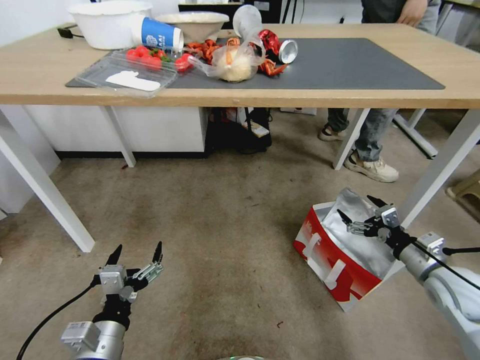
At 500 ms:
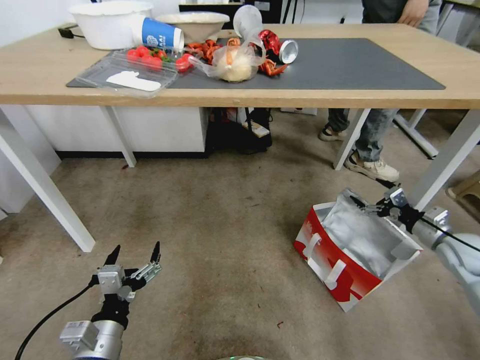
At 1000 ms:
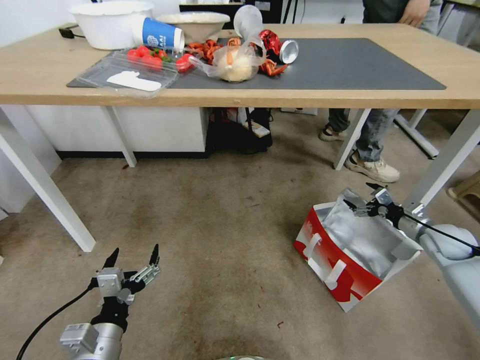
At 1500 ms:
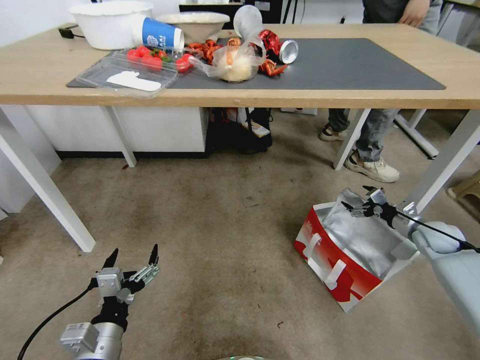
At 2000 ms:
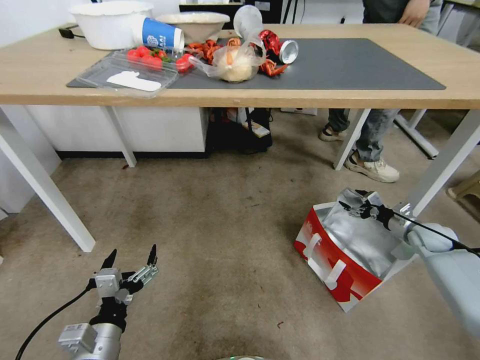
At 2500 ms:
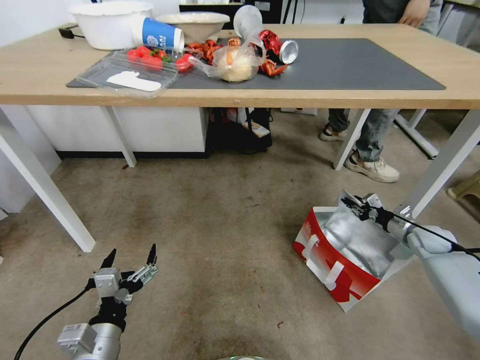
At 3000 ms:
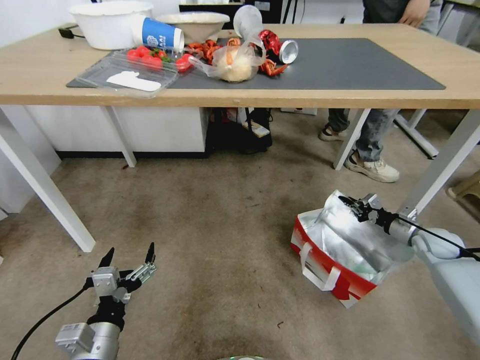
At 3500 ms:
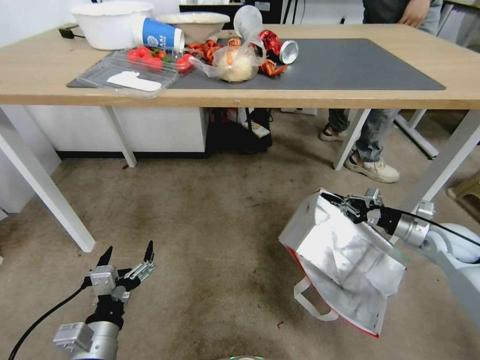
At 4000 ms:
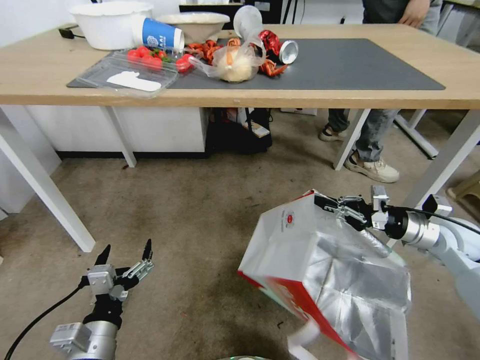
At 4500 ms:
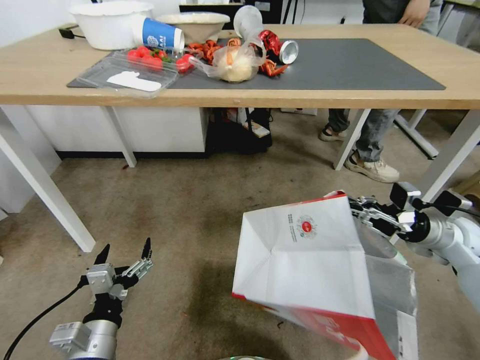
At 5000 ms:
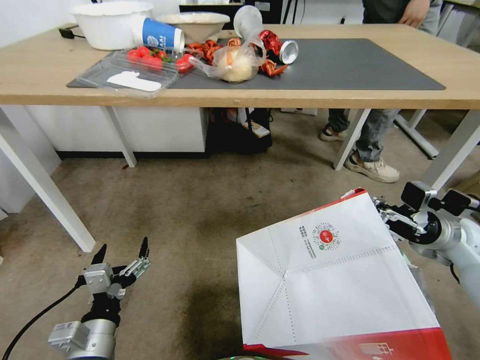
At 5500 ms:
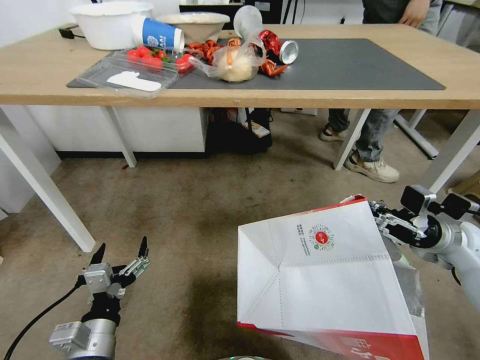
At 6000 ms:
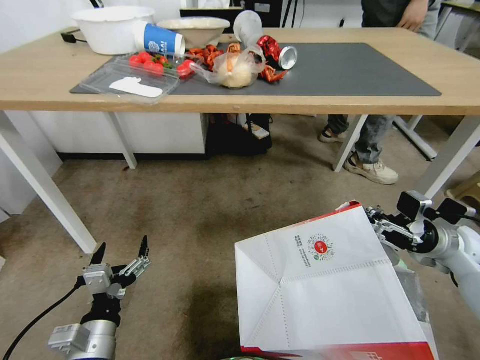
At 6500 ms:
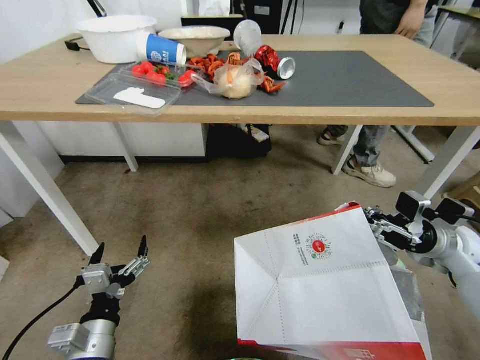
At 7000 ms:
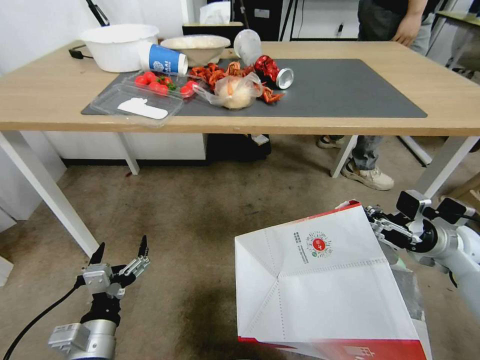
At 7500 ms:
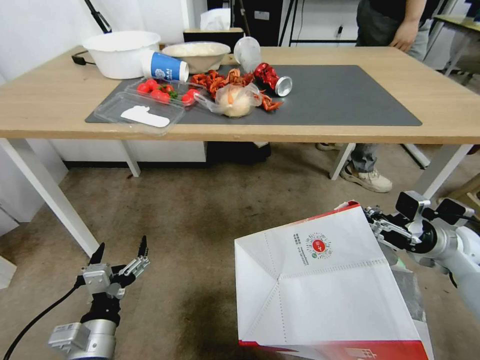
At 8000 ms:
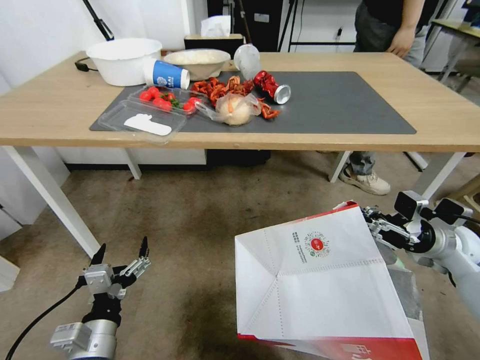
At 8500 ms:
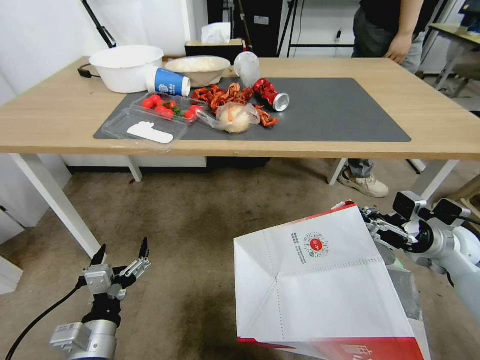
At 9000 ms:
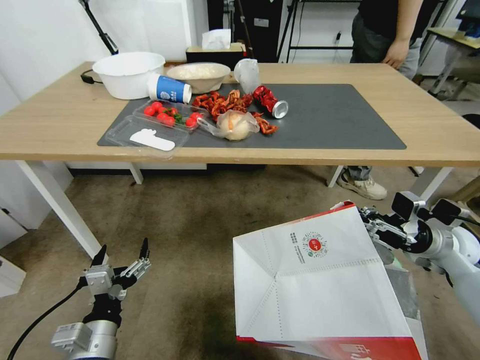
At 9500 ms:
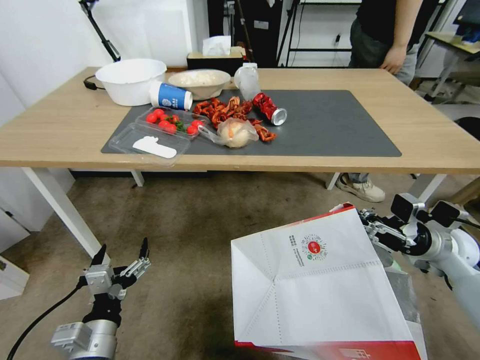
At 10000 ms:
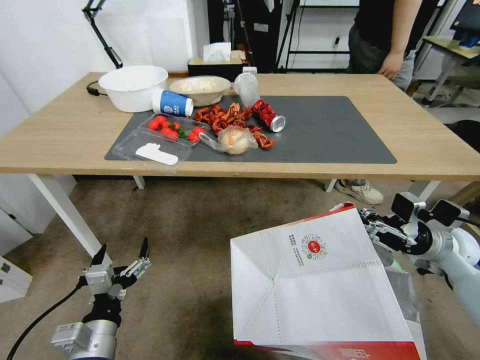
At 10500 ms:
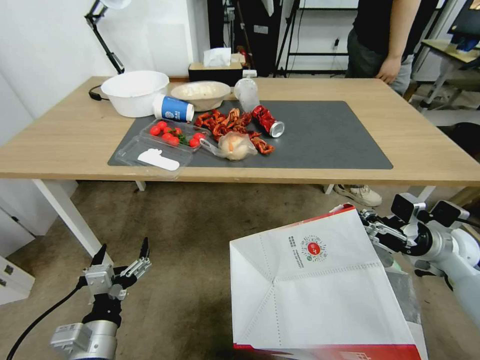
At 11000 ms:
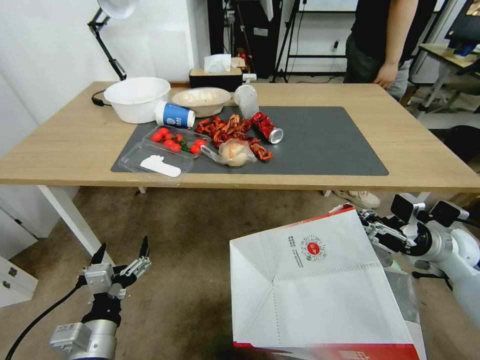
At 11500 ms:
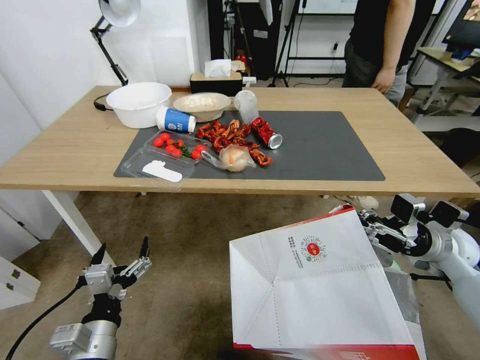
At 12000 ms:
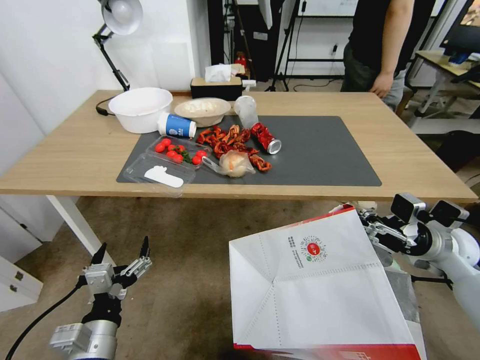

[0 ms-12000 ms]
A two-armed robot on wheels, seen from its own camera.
Task of the whole recording: Pick up the food delivery bag from the floor and place it on the table.
0 ms to 2000 ms: The right gripper shifts approximately 25 cm forward, to the right and downward.
2000 ms to 4000 ms: The right gripper shifts roughly 15 cm upward, to the left and backward, and closes.

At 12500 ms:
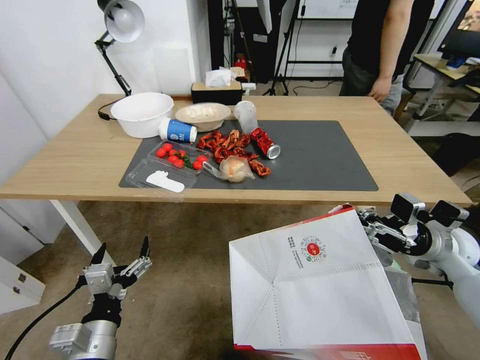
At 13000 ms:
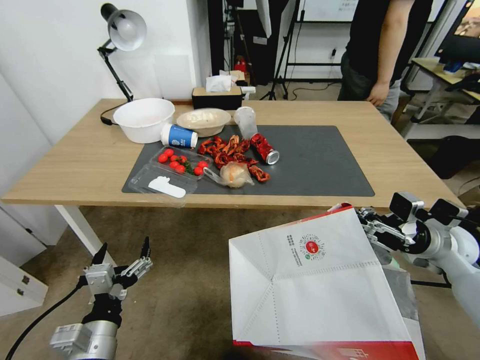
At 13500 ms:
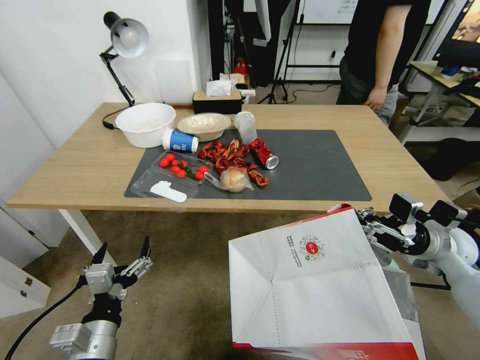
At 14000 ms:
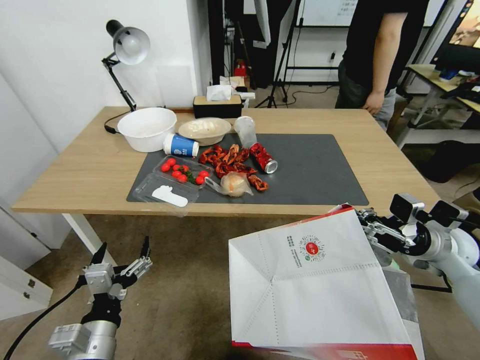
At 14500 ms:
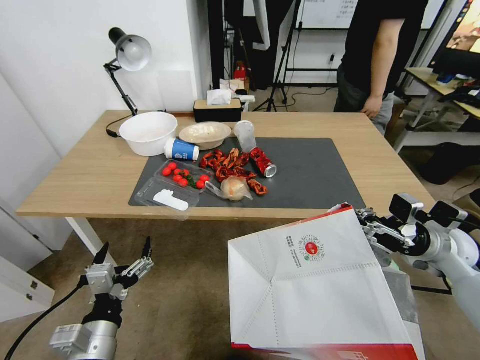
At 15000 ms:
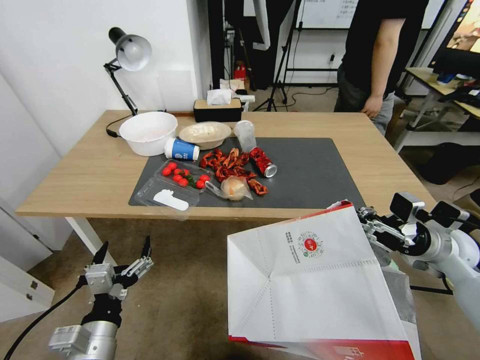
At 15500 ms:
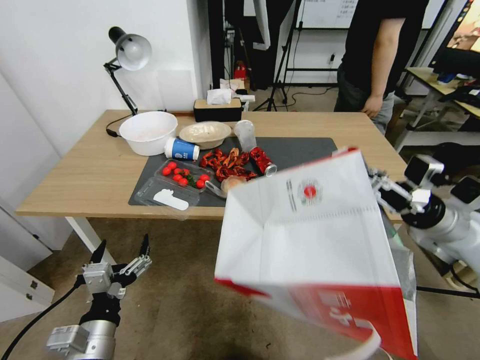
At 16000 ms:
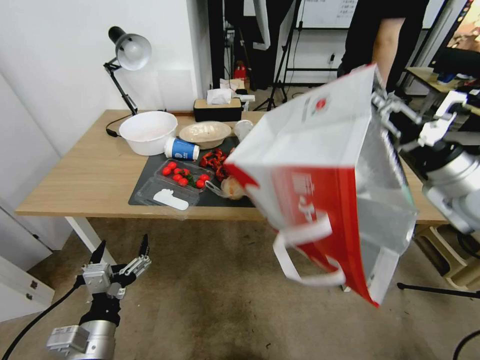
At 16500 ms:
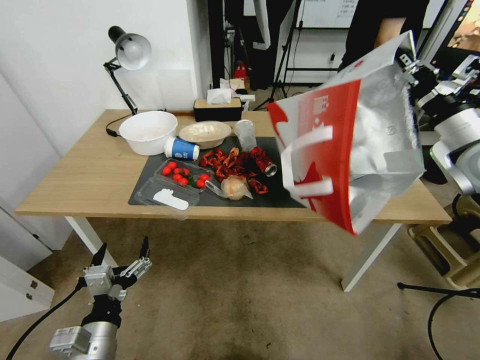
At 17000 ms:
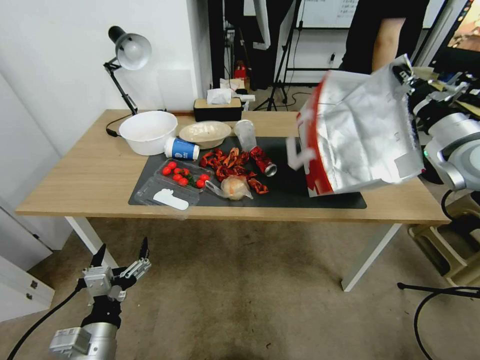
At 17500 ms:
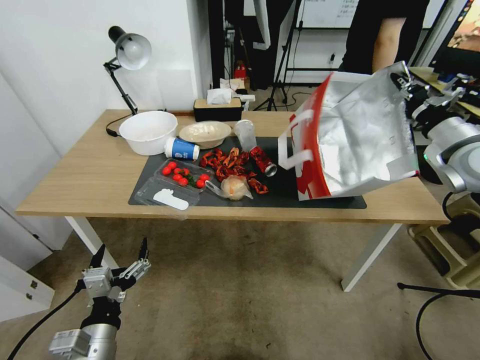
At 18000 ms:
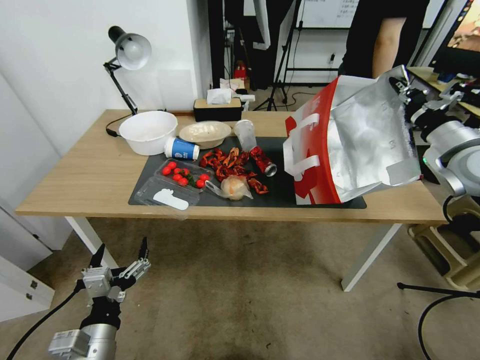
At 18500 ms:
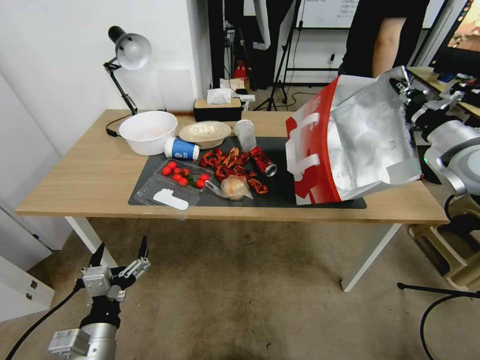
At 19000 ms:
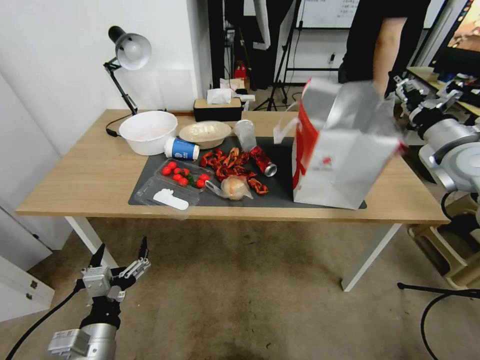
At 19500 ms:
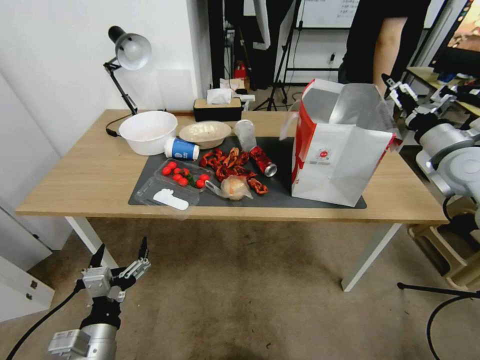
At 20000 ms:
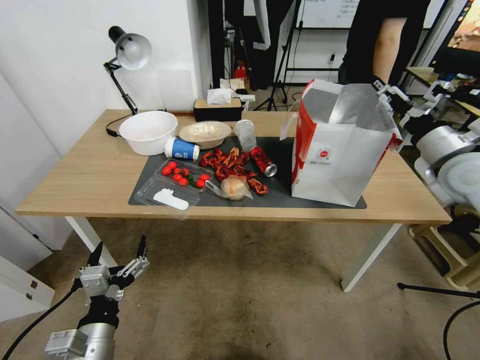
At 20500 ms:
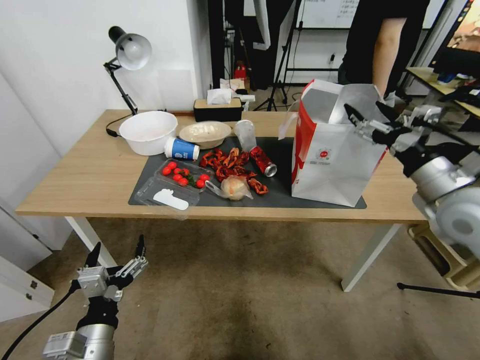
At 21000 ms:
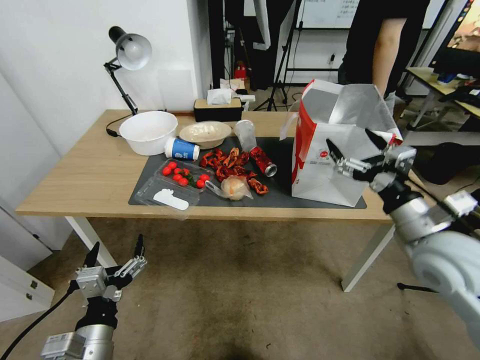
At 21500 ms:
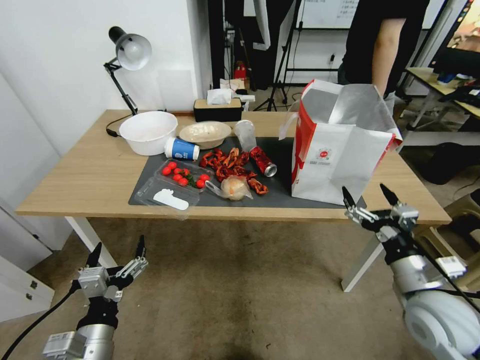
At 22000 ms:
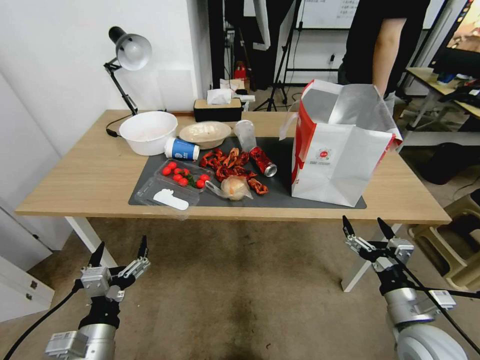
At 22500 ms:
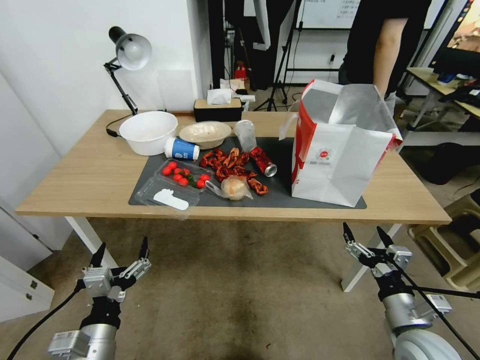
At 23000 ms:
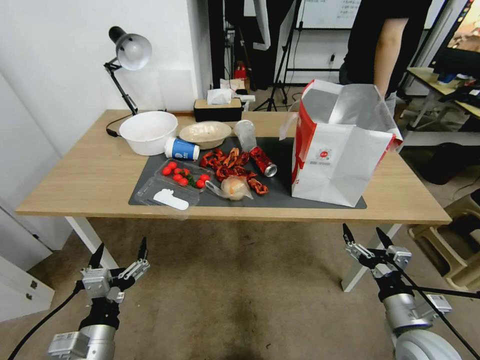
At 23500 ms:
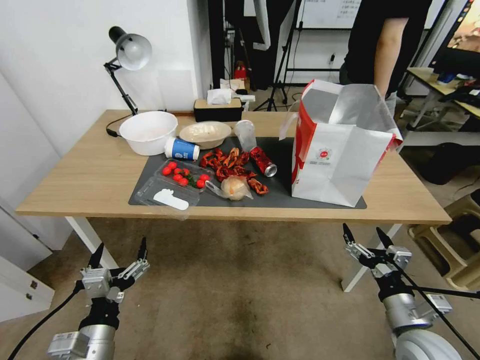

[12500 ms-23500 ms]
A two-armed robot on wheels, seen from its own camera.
Task of the whole recording: Pick up the food delivery bag from the floor and place it on the table.
14500 ms to 16000 ms: The right gripper goes roughly 10 cm upward.
16000 ms to 18000 ms: The right gripper travels forward and upward by approximately 10 cm.
18000 ms to 20000 ms: The right gripper opens.
20000 ms to 21500 ms: The right gripper is displaced downward and backward by roughly 25 cm.
21500 ms to 23500 ms: The right gripper goes about 10 cm downward.

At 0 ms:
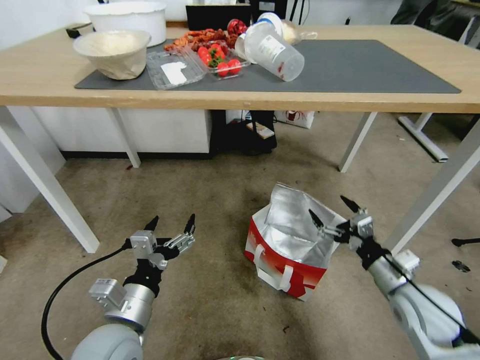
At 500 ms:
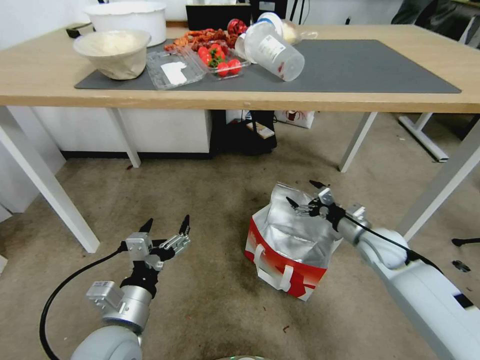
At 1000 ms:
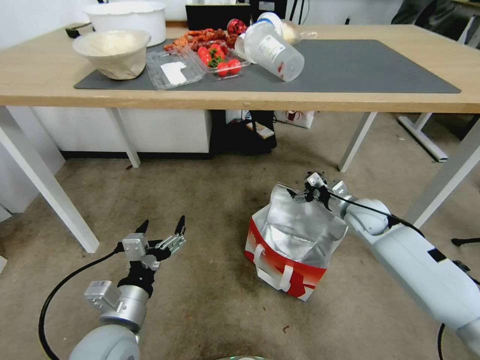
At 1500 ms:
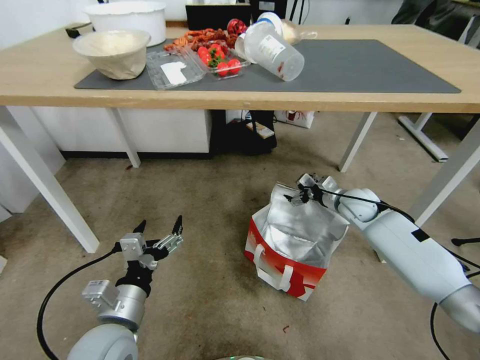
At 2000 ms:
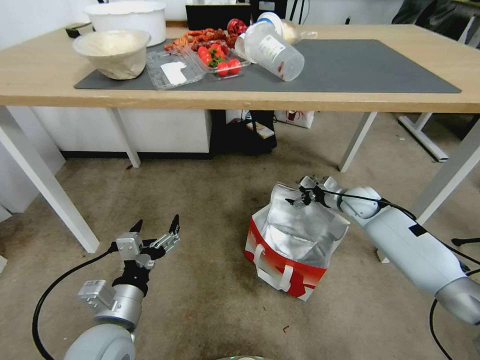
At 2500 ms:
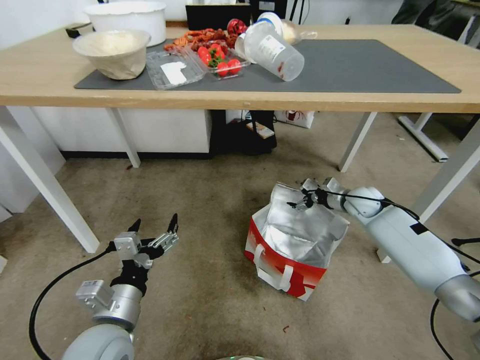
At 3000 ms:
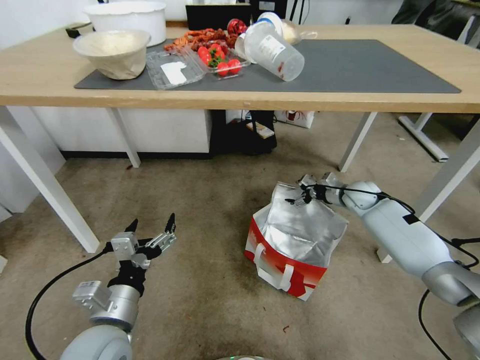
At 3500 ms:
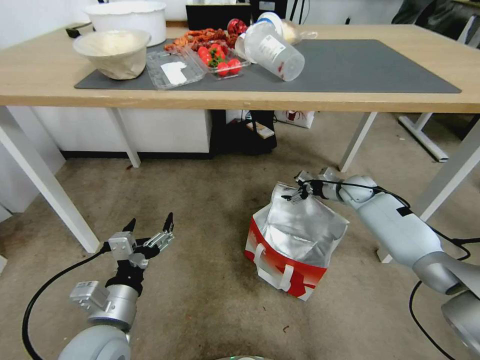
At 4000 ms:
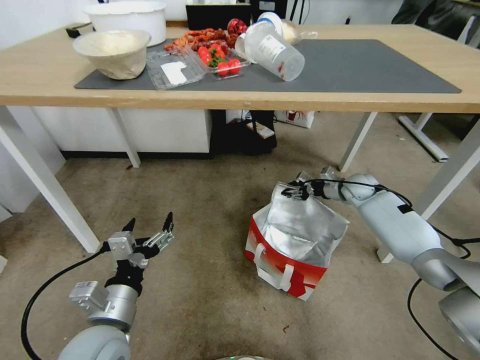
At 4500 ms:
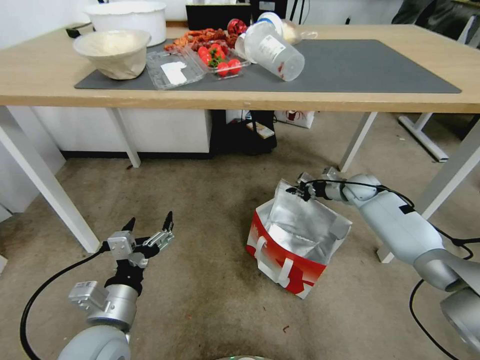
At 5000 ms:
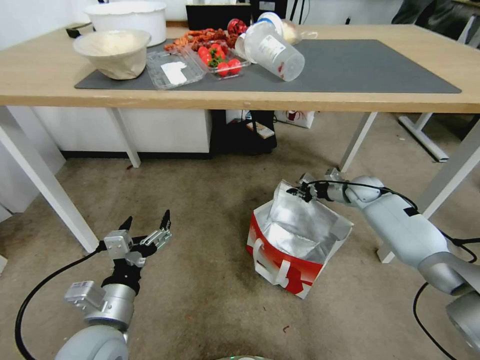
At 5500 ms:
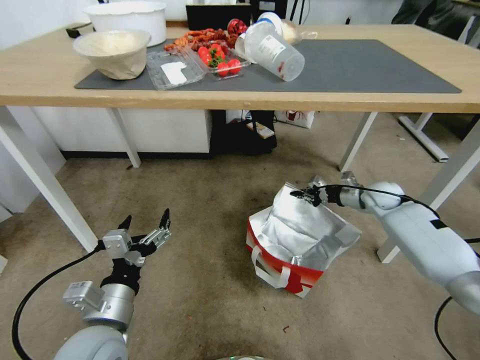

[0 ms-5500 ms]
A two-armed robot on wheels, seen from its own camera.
Task of the whole recording: Pick up the food delivery bag from the floor and place it on the table.
0 ms to 2000 ms: The right gripper shifts roughly 30 cm forward.
2000 ms to 3500 ms: The right gripper goes roughly 5 cm forward.
3500 ms to 5500 ms: The right gripper heads to the right, covering some 5 cm, and closes up.
